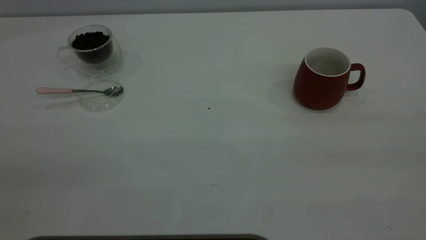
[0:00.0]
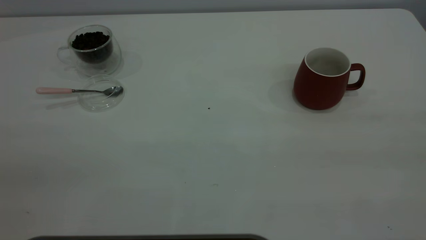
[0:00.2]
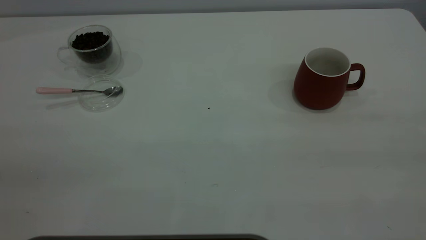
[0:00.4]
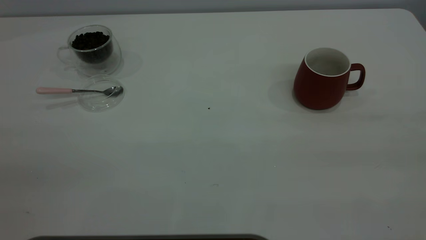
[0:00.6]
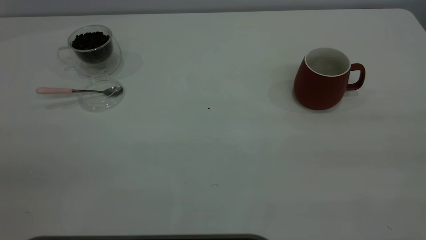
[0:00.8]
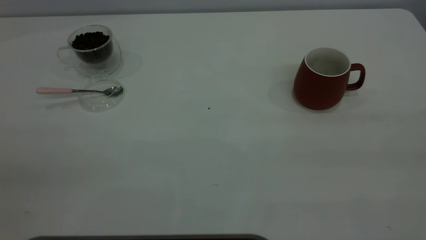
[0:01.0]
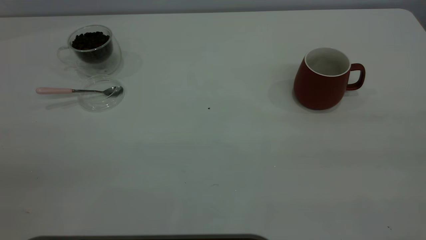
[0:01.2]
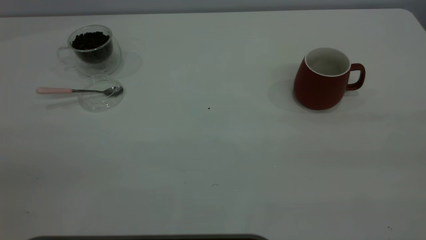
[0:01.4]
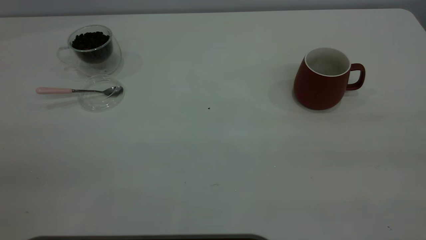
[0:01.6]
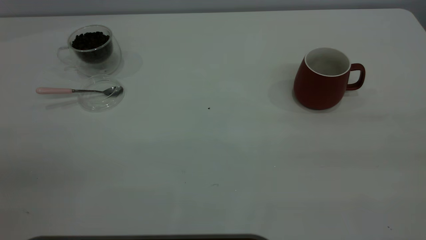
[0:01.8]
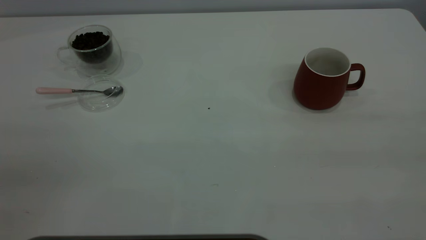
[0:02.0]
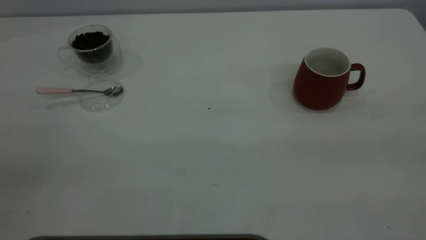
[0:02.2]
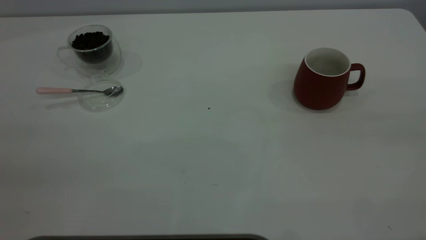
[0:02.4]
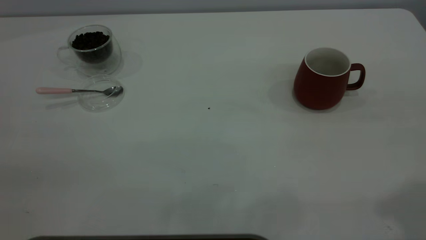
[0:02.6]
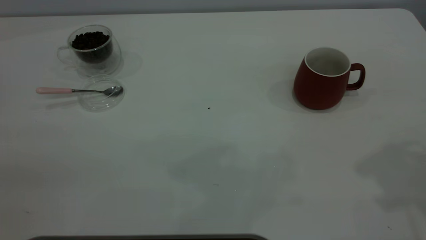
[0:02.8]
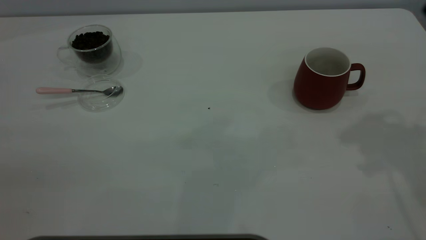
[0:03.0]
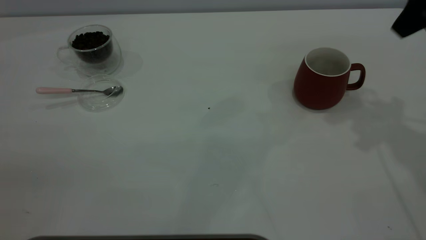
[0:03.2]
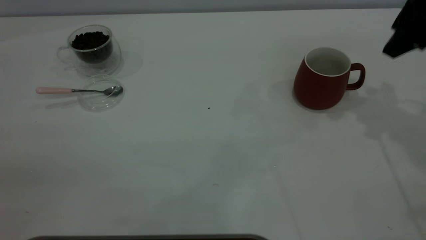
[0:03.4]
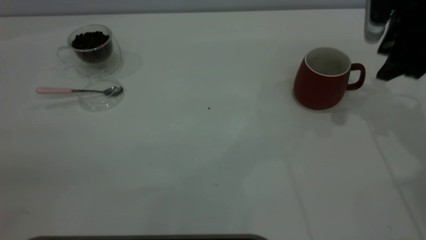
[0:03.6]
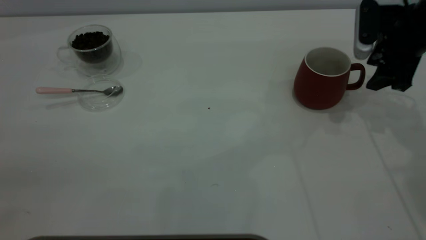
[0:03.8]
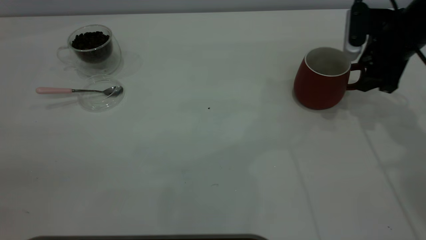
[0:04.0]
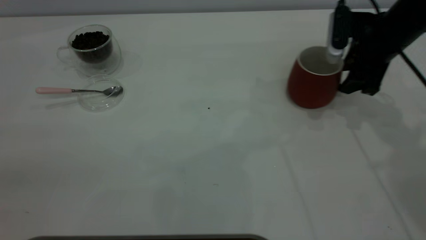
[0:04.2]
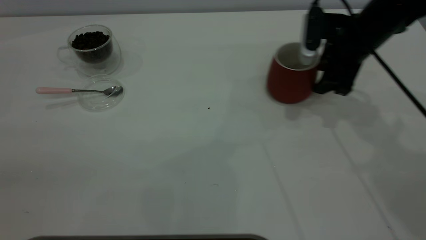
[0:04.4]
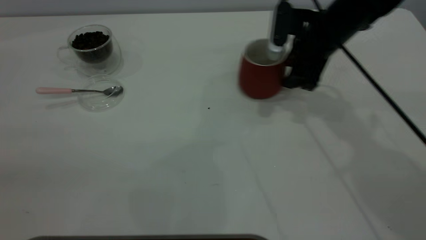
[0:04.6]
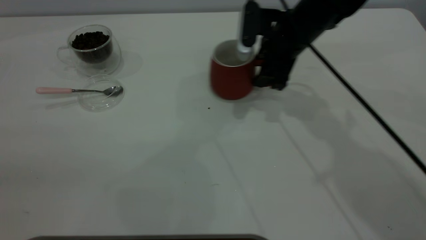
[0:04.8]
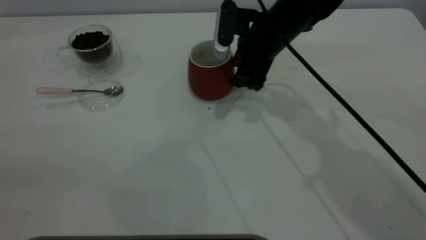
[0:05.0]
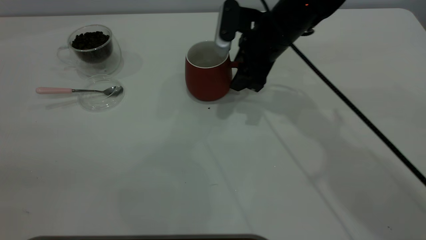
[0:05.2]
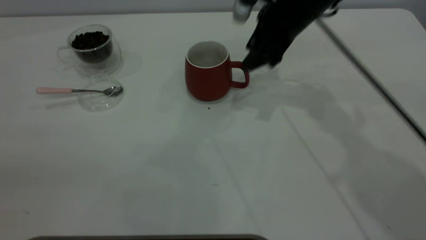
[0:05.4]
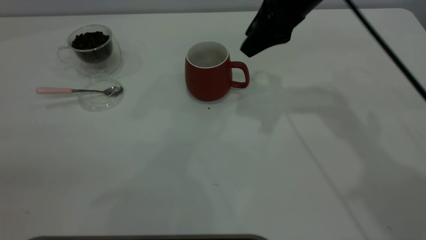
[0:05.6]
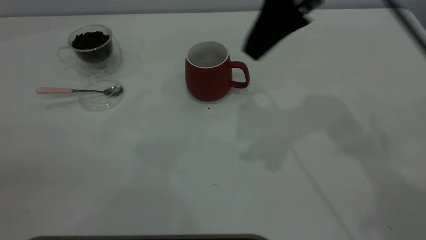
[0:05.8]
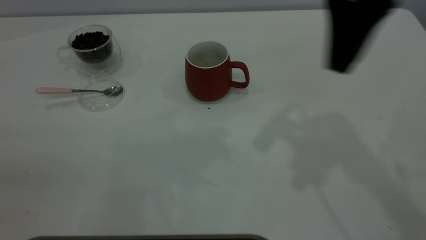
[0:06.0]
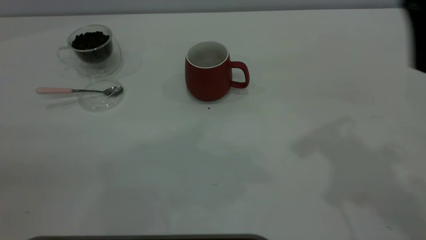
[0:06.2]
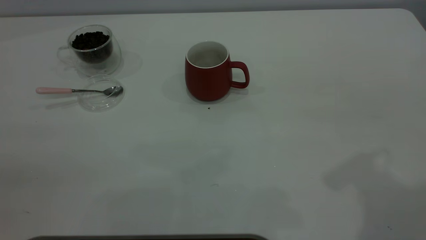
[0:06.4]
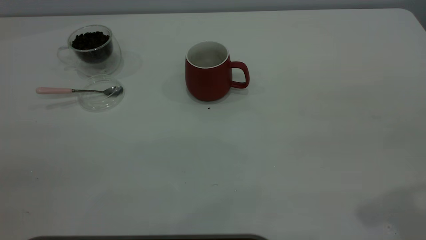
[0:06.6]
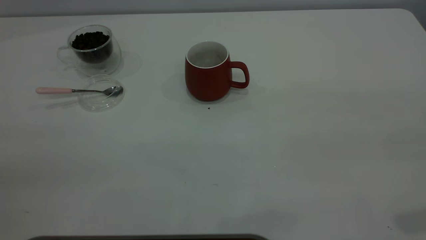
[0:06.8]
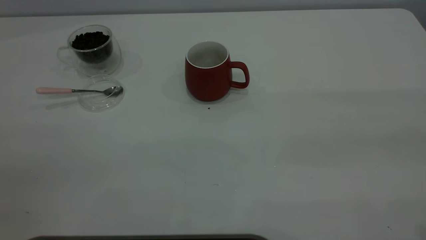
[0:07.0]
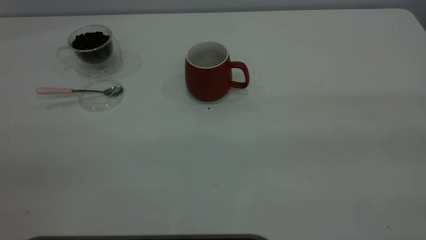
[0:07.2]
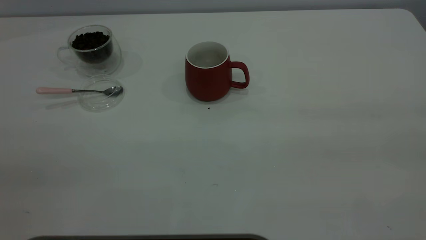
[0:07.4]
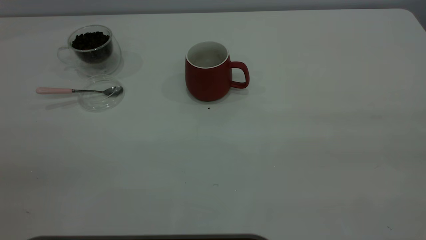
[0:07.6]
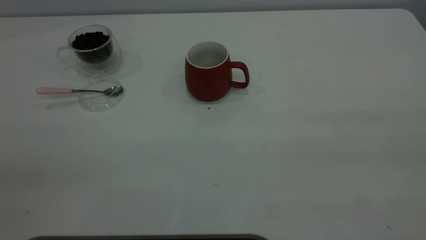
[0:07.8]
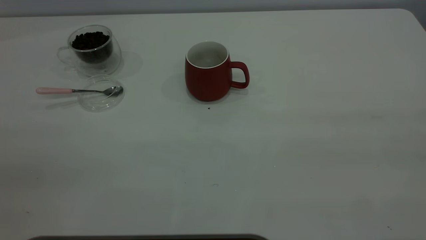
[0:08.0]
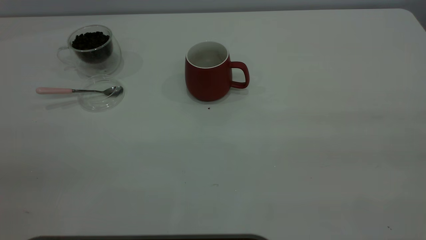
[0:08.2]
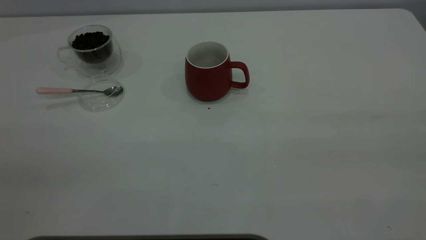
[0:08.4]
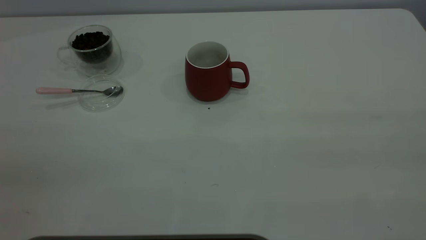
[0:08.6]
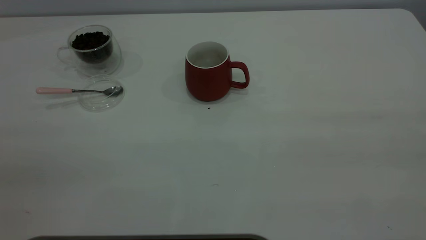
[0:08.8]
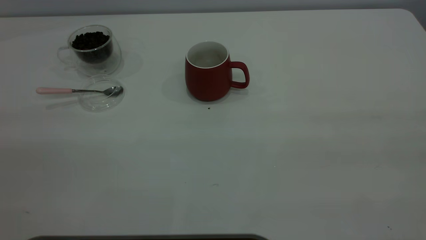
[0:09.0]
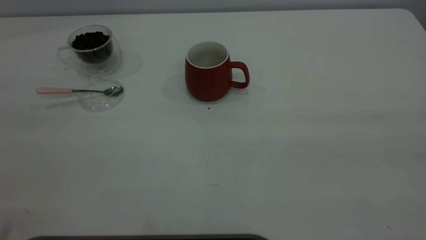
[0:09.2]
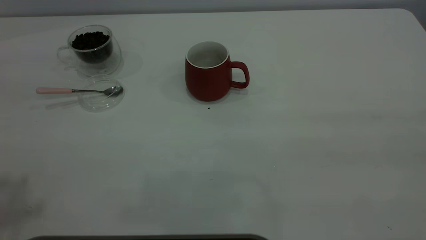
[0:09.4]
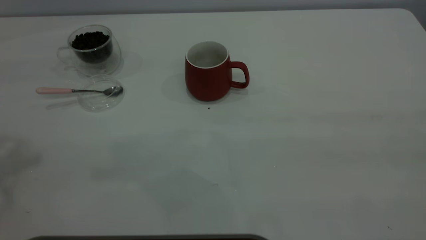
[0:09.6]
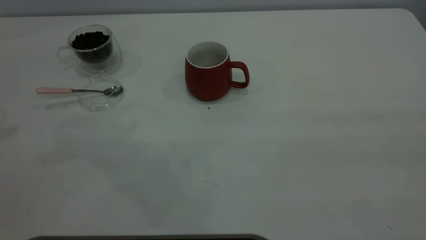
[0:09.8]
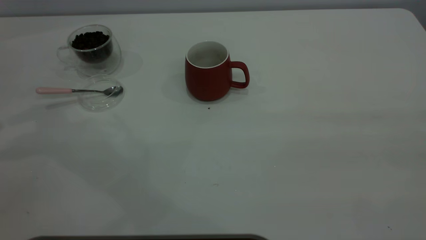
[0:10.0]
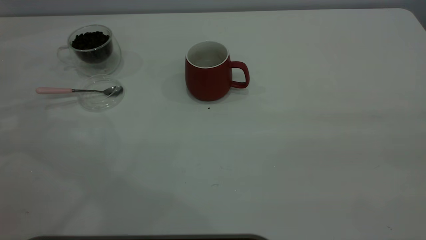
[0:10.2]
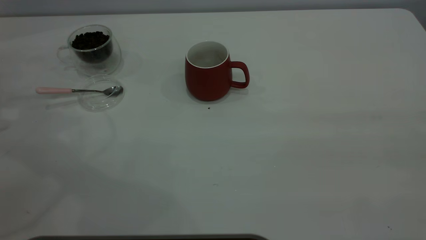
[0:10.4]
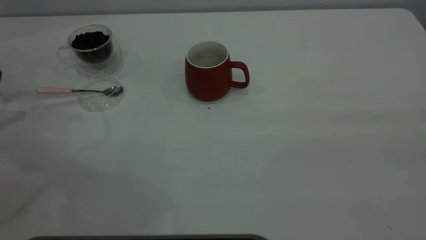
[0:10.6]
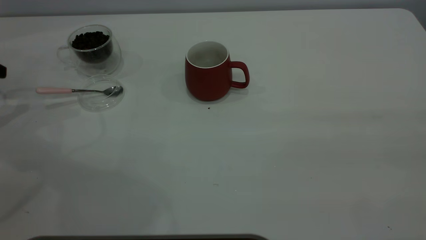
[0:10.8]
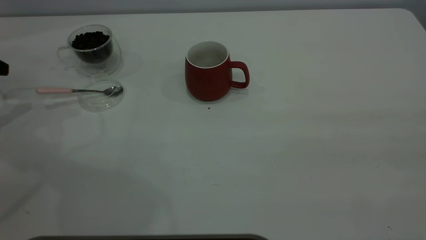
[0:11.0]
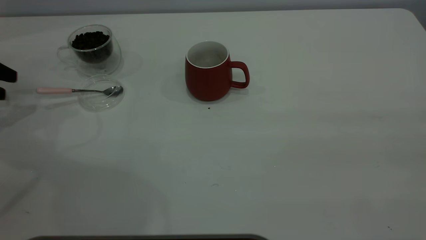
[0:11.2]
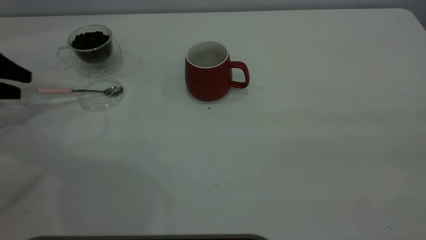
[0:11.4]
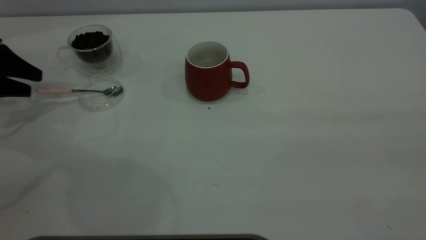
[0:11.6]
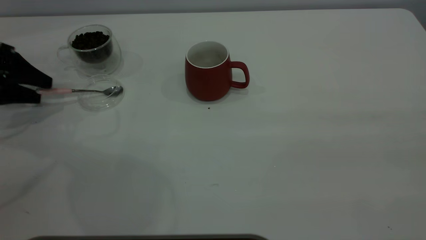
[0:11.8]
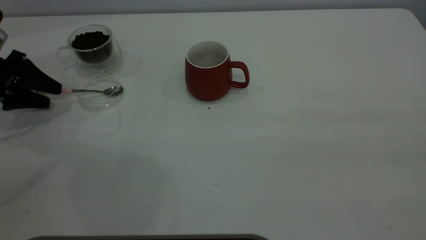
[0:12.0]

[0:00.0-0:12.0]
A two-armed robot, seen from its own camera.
Task of the whole recording: the right gripper place the red cup in the center of the table, the left gripper take the pink spoon from the cup lid and scoop out the coffee beans from the coffee cup and put them into the red cup, the left gripper put the spoon back into the cup lid.
Step, 0:00.0 to 0:05.6: Move the cup to the center of view.
0:00.0 to 0:01.6: The two grippers keep their place.
0:03.0 to 0:04.4: The right gripper moves downward and forward, roughly 25 cm.
0:04.4 to 0:06.0: The right gripper is displaced upward and backward by about 20 cm.
0:06.0 to 0:07.6: The right gripper travels backward and to the right by approximately 35 cm.
0:10.4 to 0:12.0: The left gripper is displaced downward and to the right by approximately 10 cm.

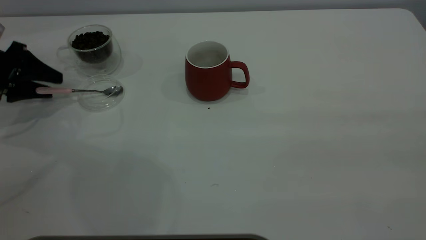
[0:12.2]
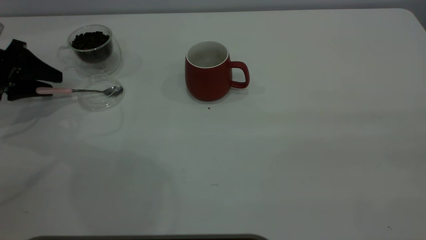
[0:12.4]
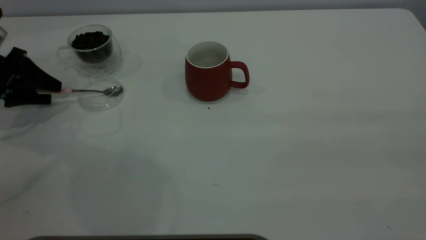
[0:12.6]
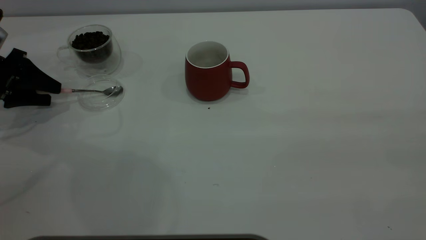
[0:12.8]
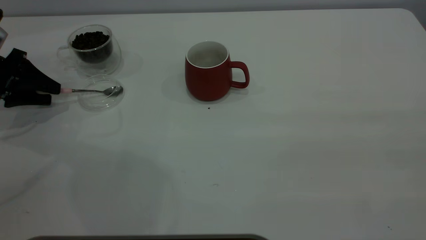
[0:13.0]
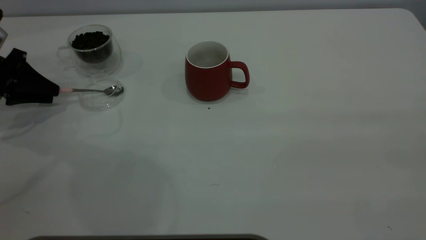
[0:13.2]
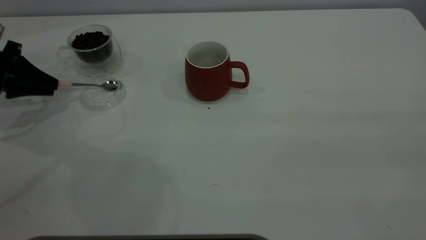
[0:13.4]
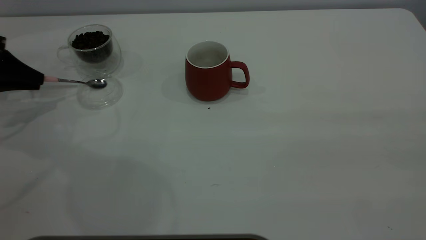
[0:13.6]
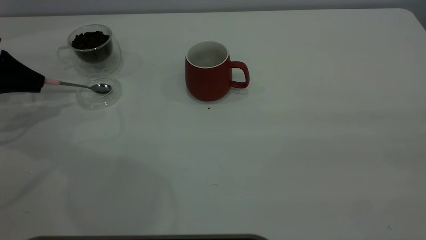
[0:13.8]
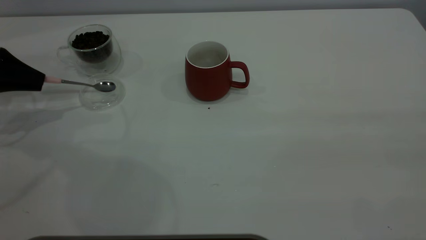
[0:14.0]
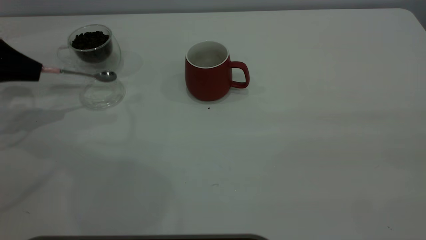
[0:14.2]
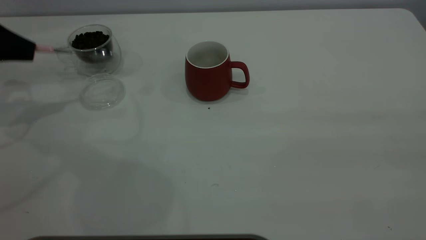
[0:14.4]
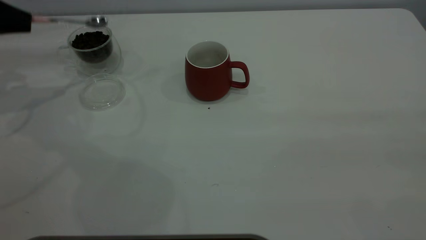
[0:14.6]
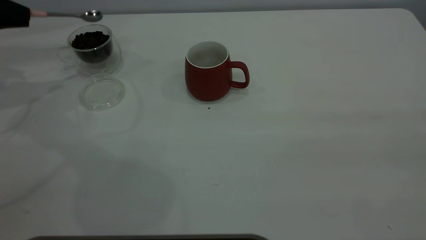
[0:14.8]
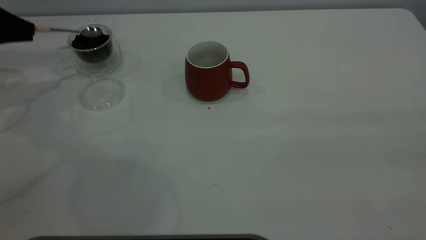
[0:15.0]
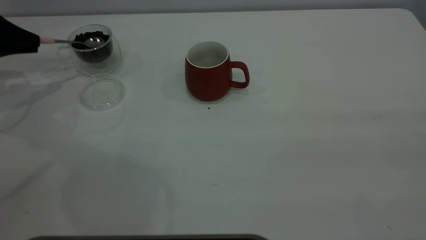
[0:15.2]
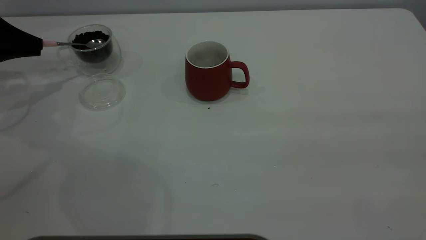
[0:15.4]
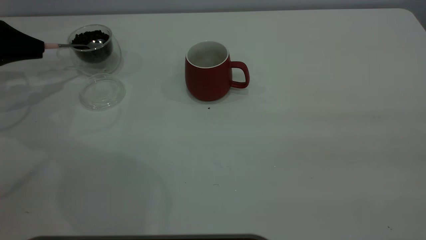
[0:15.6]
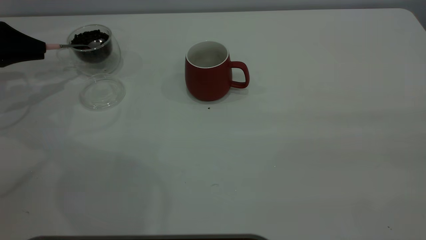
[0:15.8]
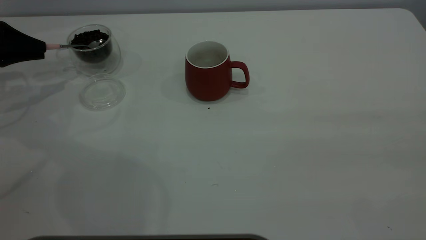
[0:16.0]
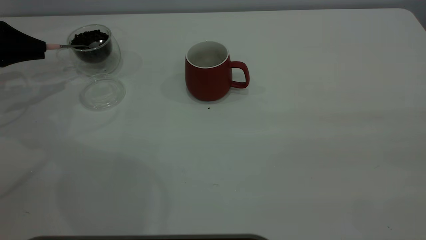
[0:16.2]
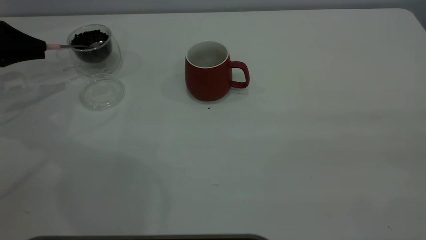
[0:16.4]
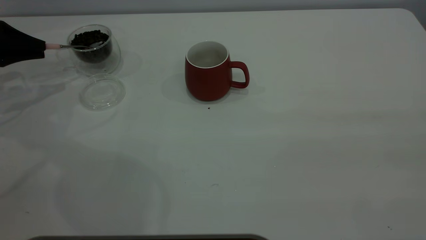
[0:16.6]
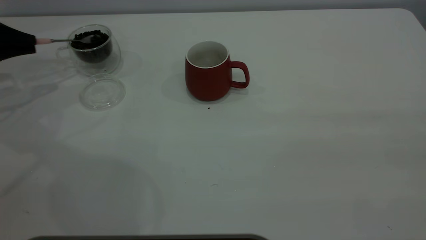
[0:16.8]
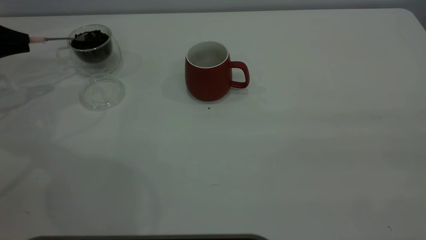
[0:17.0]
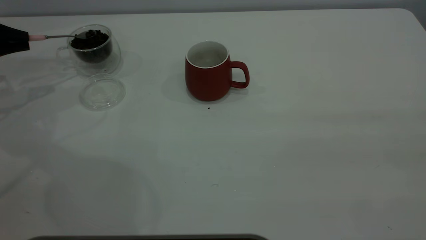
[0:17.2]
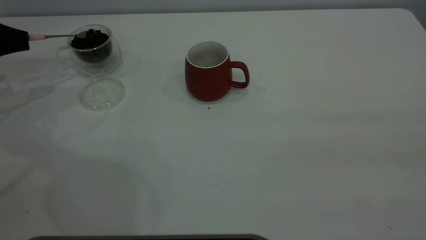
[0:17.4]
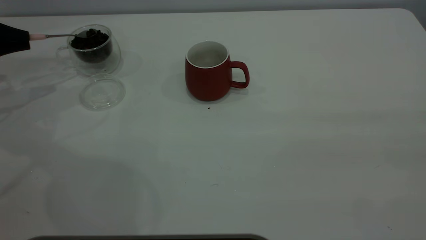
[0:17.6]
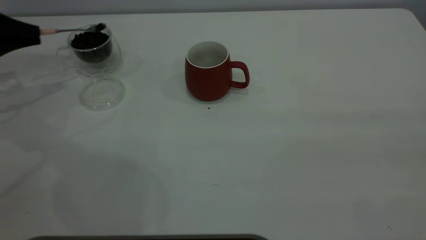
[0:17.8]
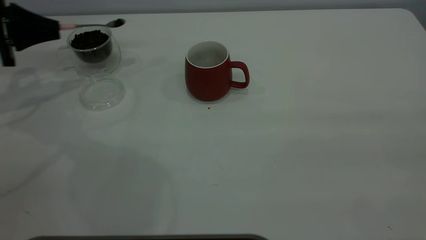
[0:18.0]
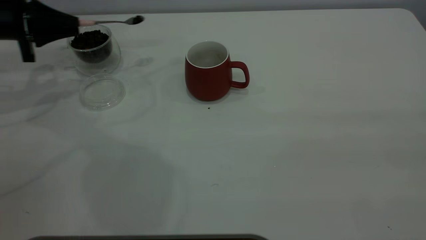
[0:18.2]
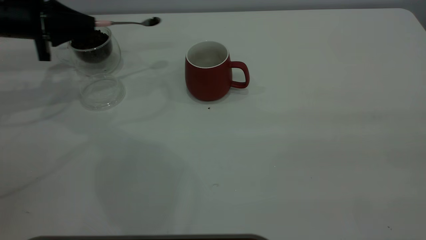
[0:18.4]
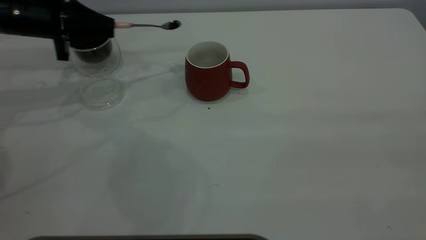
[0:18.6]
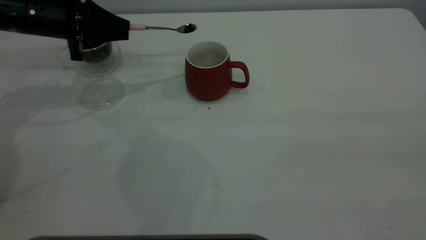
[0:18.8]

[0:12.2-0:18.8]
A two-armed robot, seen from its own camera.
Task of the whole recording: the right gripper place the red cup in the center of the table, the left gripper take the pink spoon from the cup lid and scoop out the coffee beans from the coffee cup and put them into the red cup, the left gripper put the spoon back into the cup lid.
Step, 0:12.2 to 0:14.4: Pick up the spoon.
0:12.2 to 0:13.8: The left gripper closes.
0:17.2 to 0:18.8: The left gripper shifts approximately 15 cm to the right.
